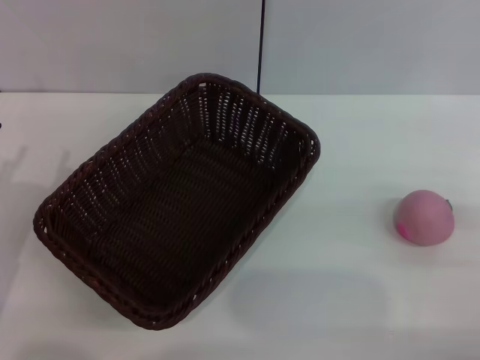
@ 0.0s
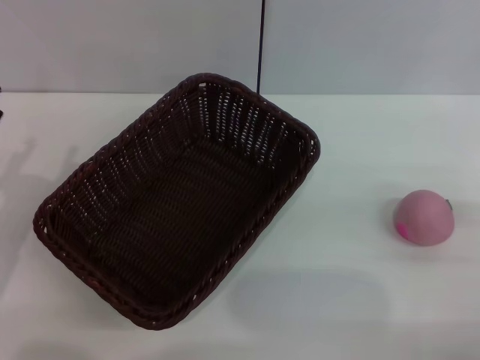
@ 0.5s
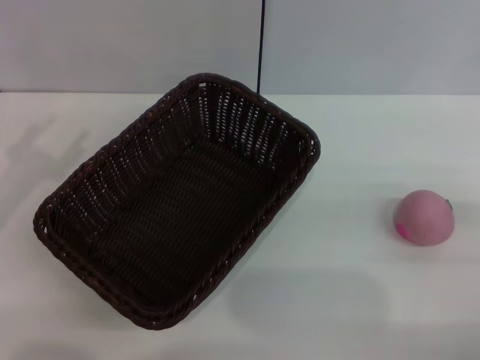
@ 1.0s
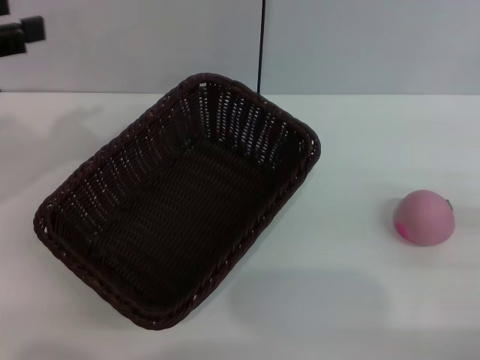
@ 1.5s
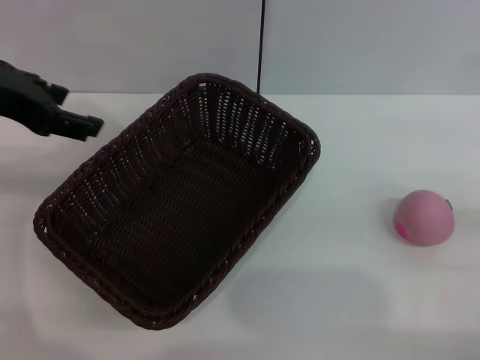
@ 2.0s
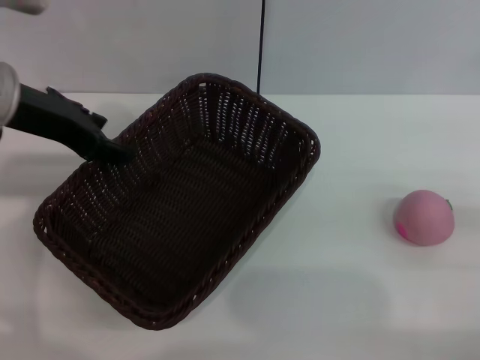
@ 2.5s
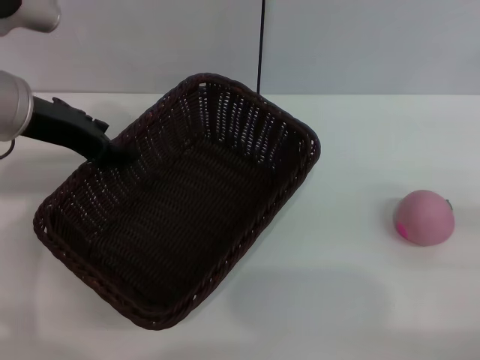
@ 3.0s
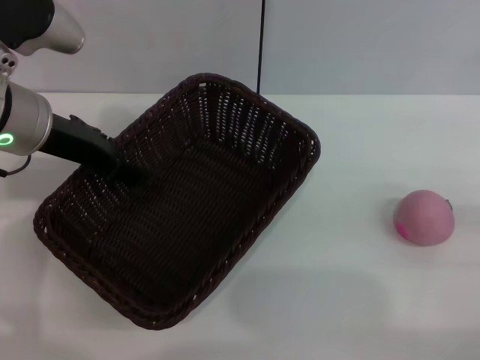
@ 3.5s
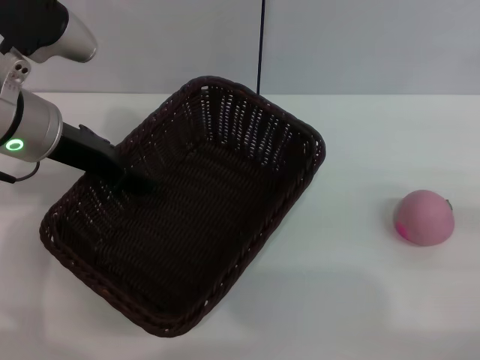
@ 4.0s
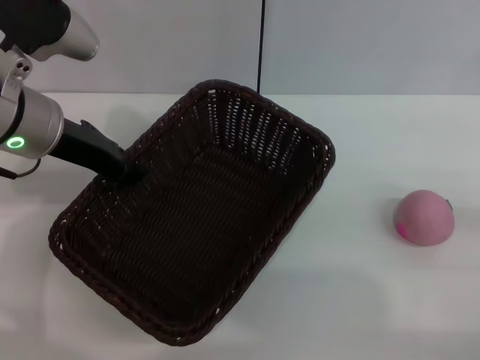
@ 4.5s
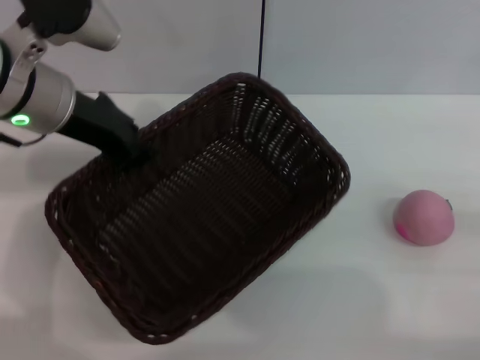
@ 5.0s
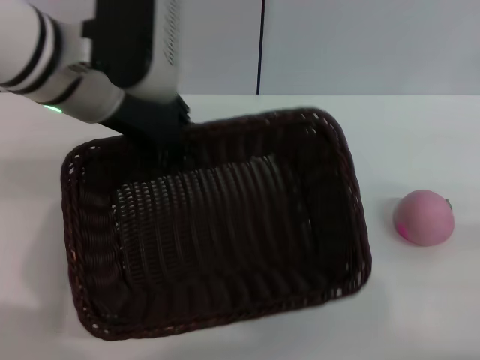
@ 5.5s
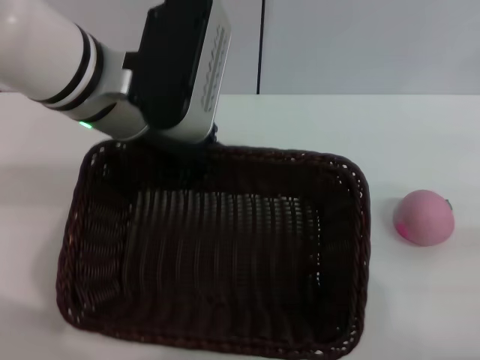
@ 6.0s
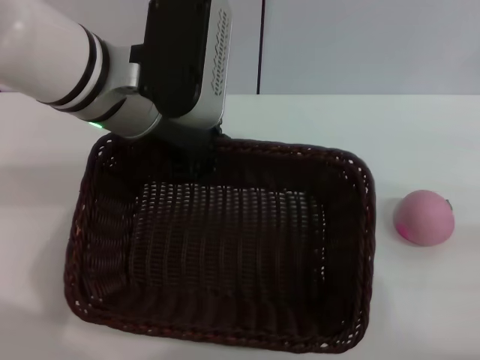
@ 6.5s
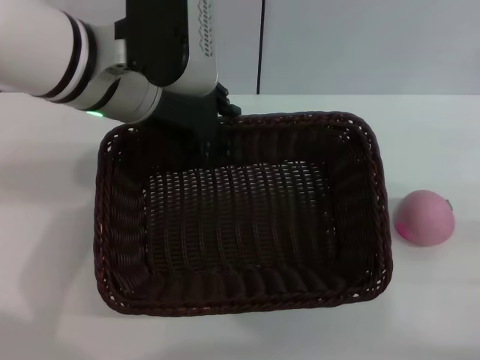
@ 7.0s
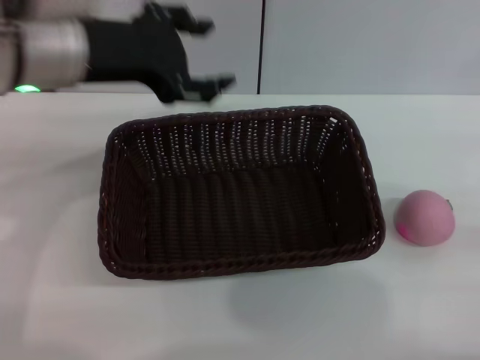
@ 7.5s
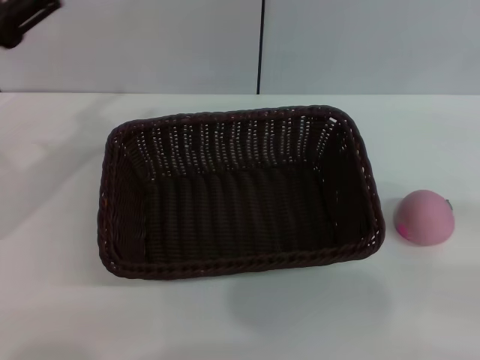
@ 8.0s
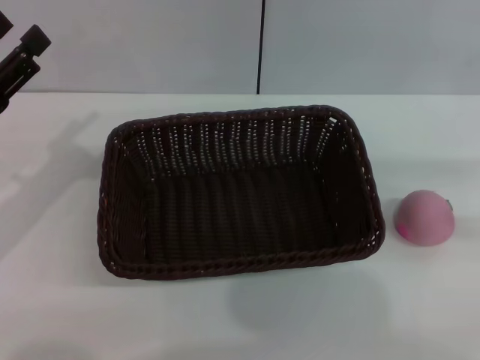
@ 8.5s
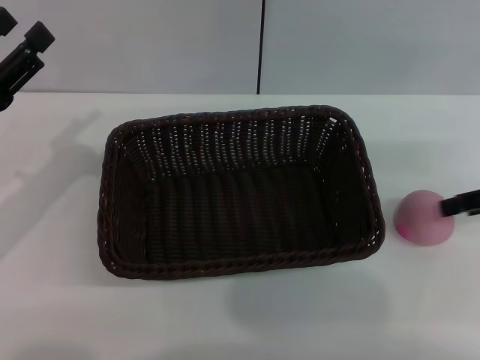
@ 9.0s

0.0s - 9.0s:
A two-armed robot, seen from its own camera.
Step, 0.0s - 4.5s: Pick up the dark basket with the left gripper.
Step, 5.0s - 7.0s: Place the dark basket in the center of view with the right gripper.
0.0s - 2.0s: The left gripper moves upward and forward, approximately 25 cm.
2.0s - 4.5s: The left gripper goes roughly 10 cm downward, and closes up.
4.5s - 7.0s: The left gripper goes approximately 10 cm to the right.
7.0s - 9.0s: The left gripper goes approximately 20 cm to the left, downward and backward, and opens up; the right gripper goes about 20 cm forward and upward.

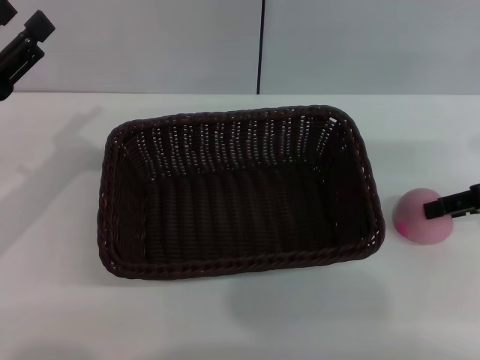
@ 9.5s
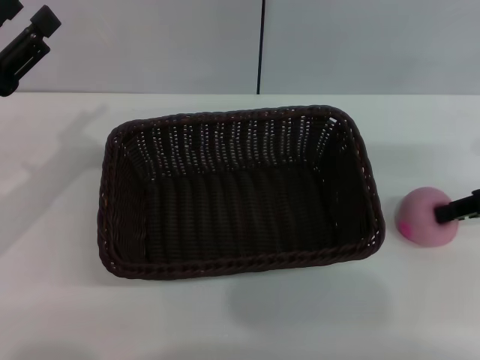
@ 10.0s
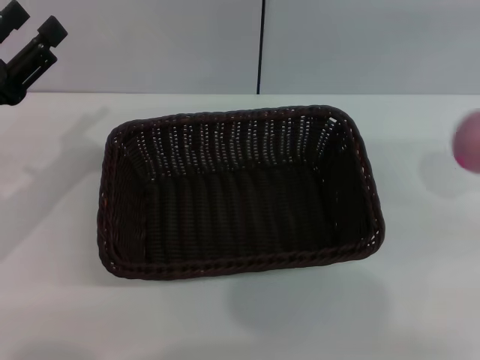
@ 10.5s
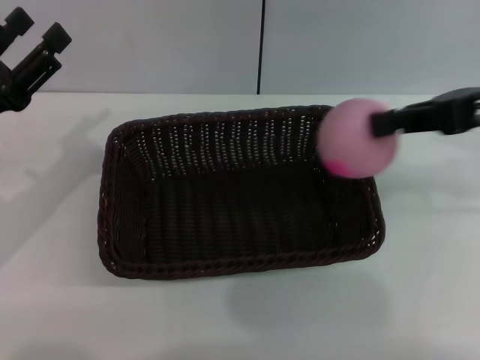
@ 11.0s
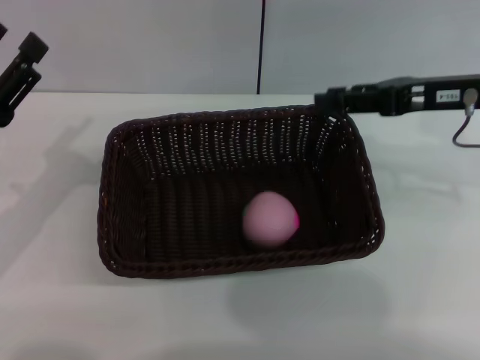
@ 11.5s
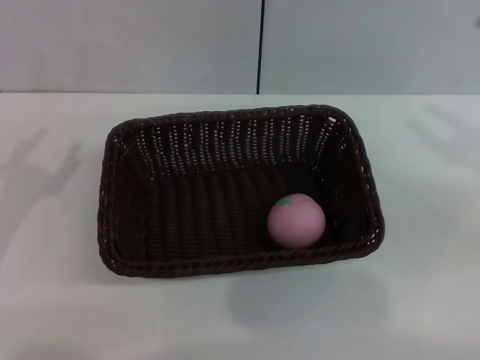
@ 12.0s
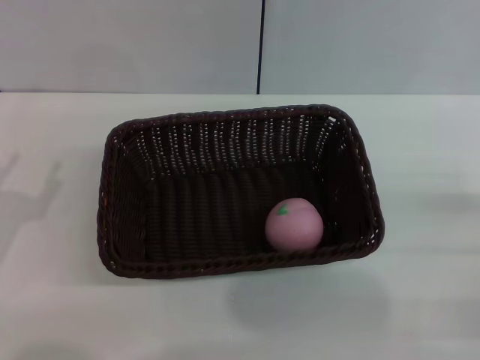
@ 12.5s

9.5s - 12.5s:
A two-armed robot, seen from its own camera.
9.5s - 11.0s: The right gripper is displaced upward and to the left by some 10 cm, and closes.
11.0s - 12.5s: The left gripper travels backward and downward by some 10 cm, while the right gripper shifts some 25 cm downward, backward and to the right, and opens its fingers.

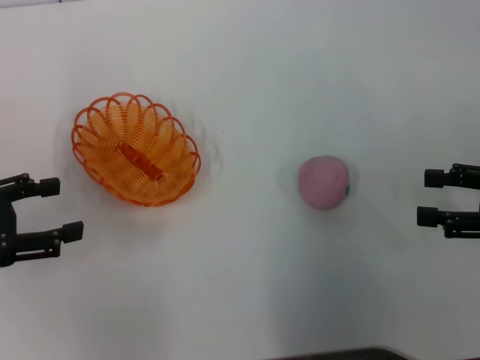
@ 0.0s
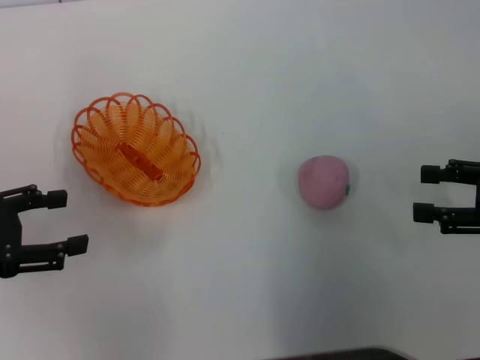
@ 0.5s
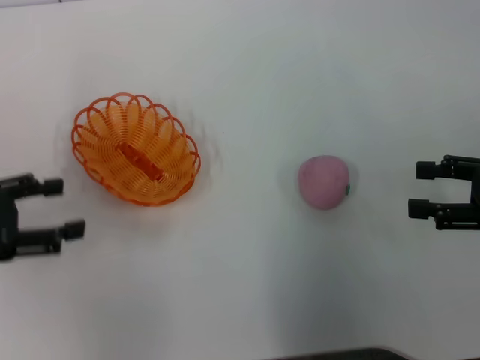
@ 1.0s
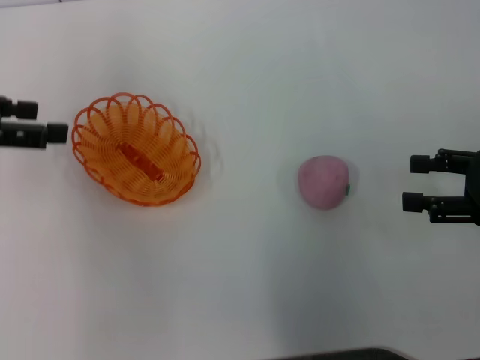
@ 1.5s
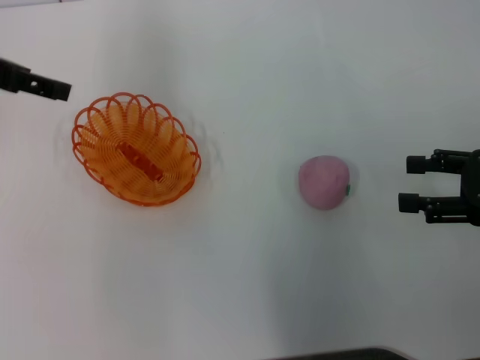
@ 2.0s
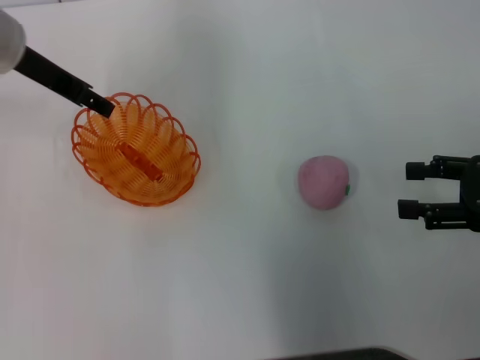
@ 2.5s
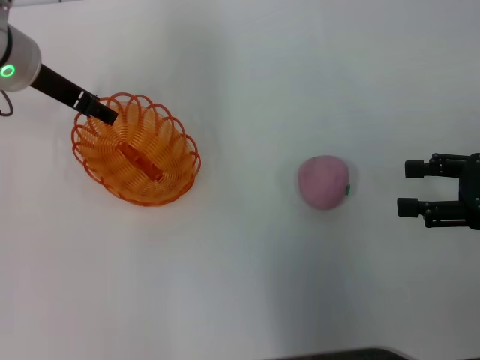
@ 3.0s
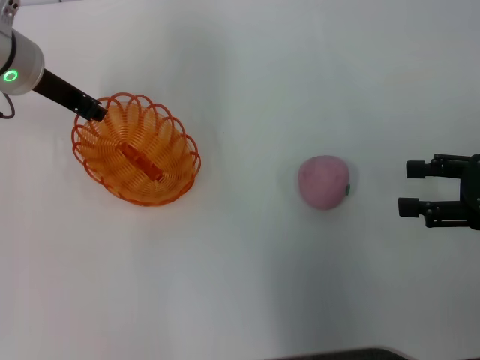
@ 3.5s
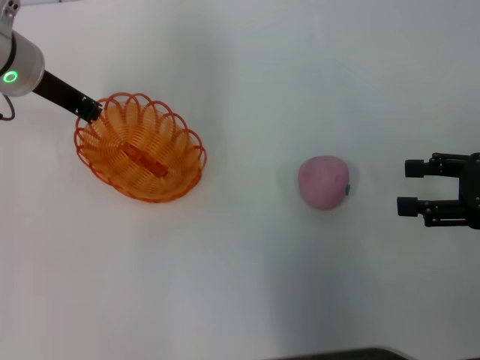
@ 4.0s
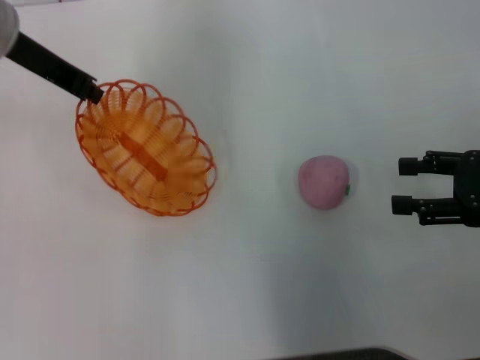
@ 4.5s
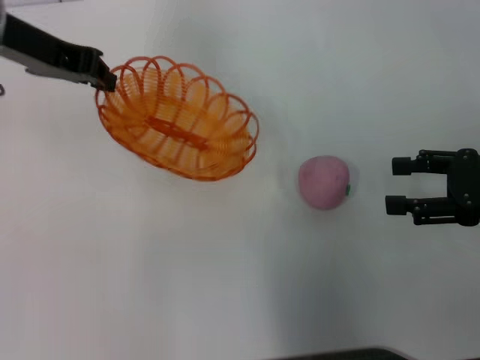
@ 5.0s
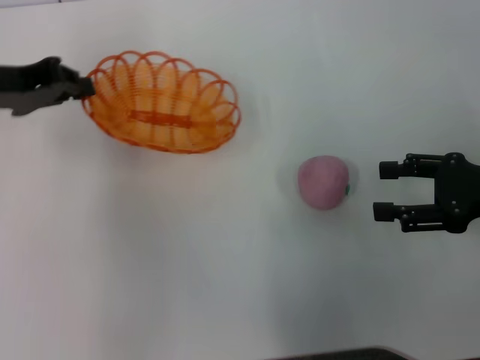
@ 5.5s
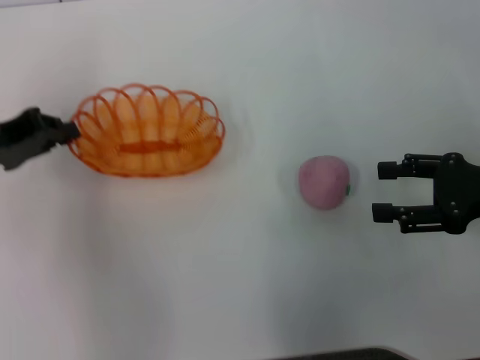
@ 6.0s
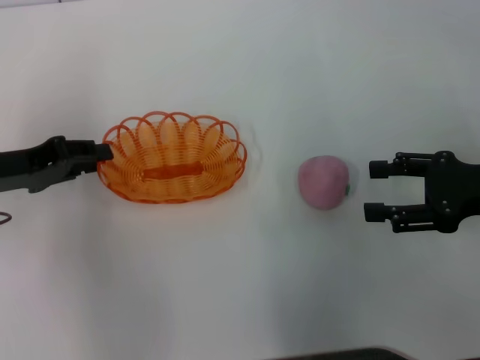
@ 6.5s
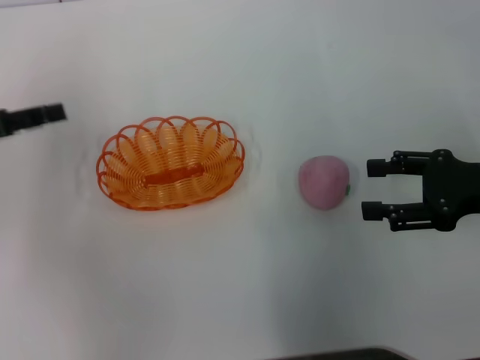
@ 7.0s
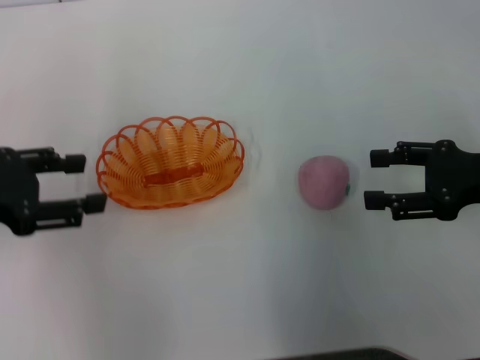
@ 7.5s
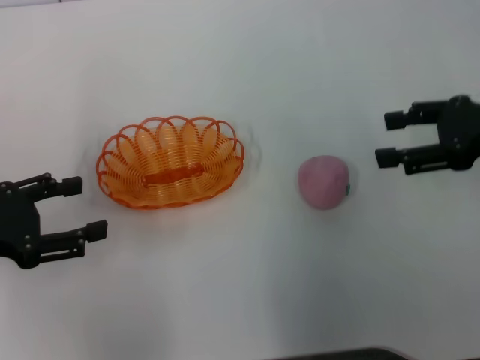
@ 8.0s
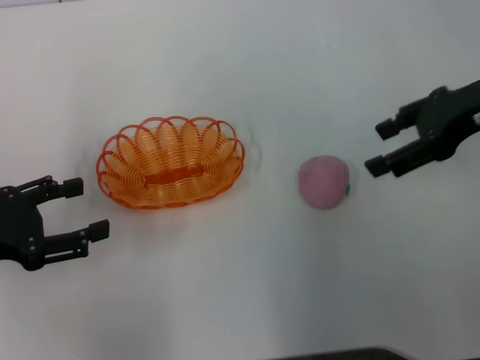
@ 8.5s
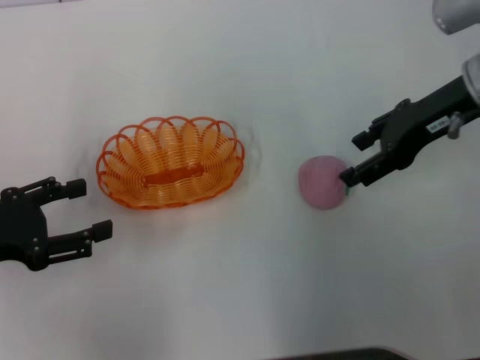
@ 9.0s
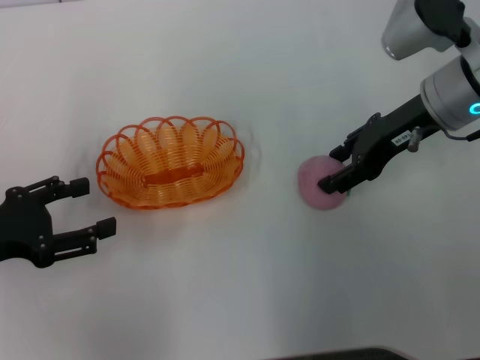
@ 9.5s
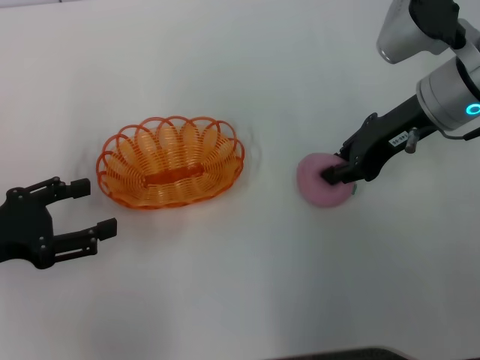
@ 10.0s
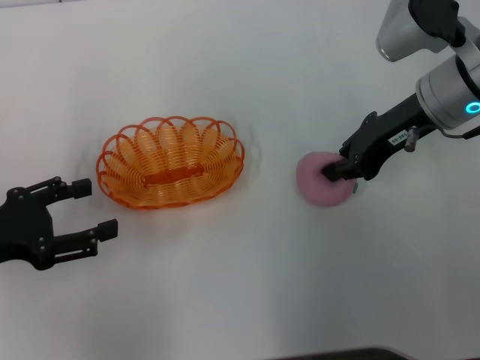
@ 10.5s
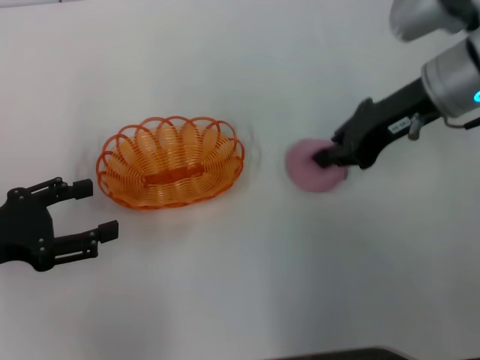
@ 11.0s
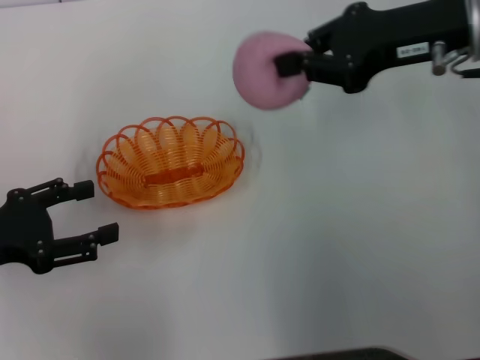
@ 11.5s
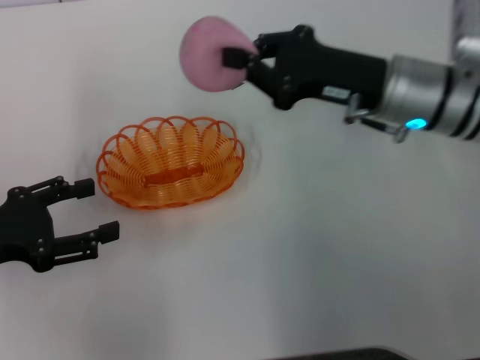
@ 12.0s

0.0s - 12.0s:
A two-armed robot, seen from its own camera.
Step, 0.0s - 4.0s: Pick up the basket with the left gripper.
Step, 4.5s - 7.0s: Place the basket in the center of view with the left gripper.
Step, 7.5s - 11.0s: Pick up the peach with the right gripper.
0.0s - 2.0s: The left gripper moves forward, upward and to the right, approximately 20 cm.
2.0s - 4.0s: The left gripper moves to the right and downward, some 10 cm, and closes up.
4.0s - 6.0s: The left gripper heads backward and to the left, covering approximately 15 cm, and moves approximately 5 cm upward and comes back.
6.0s - 8.0s: The left gripper is displaced backward by roughly 10 cm, and opens; the right gripper heads upward, covering about 5 cm.
8.0s - 10.0s: The right gripper heads to the left and forward, covering approximately 10 cm, and closes.
10.0s - 12.0s: The right gripper travels upward and back again, approximately 10 cm each way, and closes its fingers.

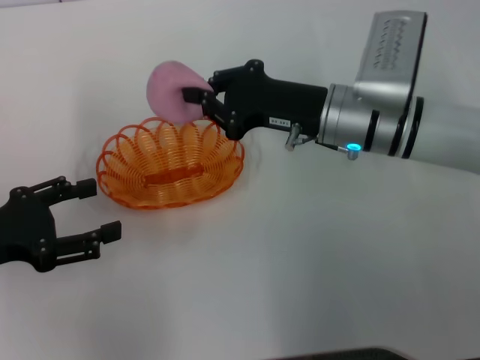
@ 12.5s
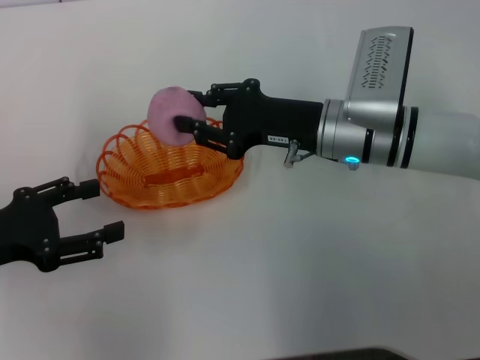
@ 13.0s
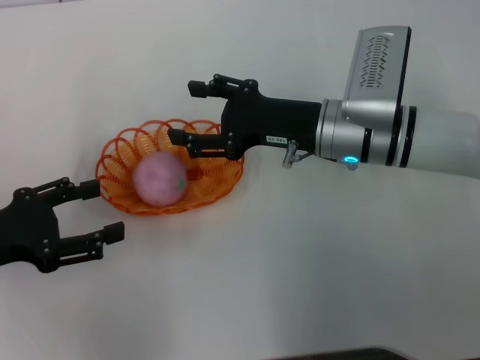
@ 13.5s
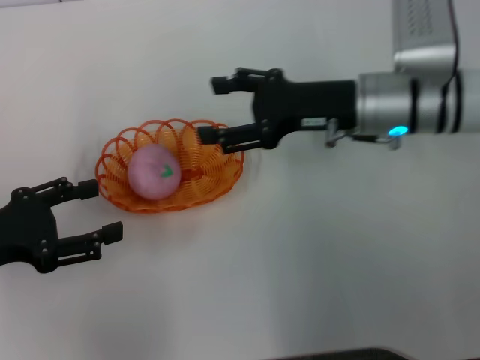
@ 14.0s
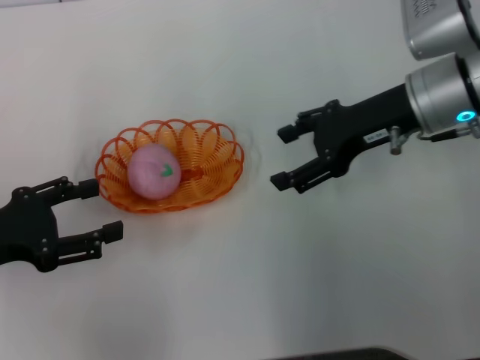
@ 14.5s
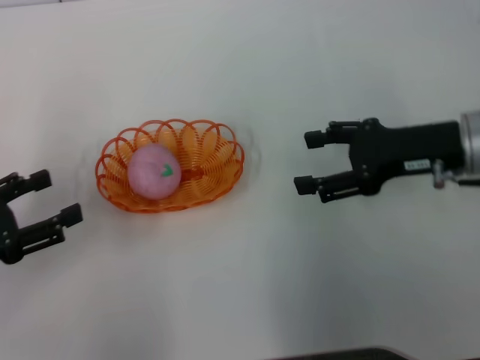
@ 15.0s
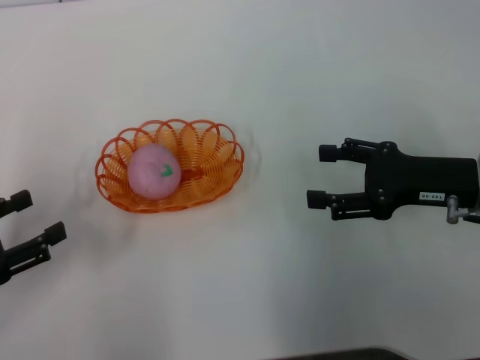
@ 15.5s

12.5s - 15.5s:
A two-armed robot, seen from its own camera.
12.5s - 14.0s: The right gripper opens up.
14.0s - 15.5s: The left gripper moves approximately 5 cm. Meanwhile the right gripper heads to the right and backward, covering roughly 15 cm.
